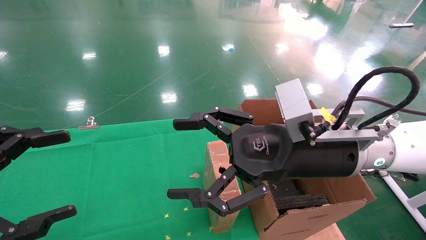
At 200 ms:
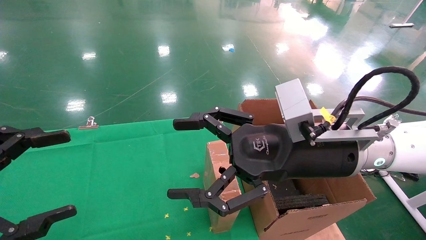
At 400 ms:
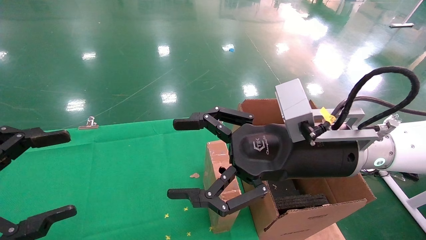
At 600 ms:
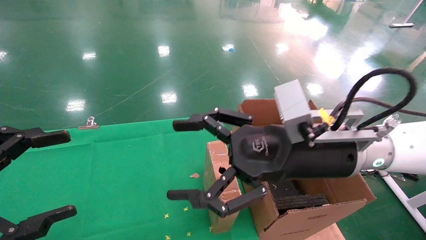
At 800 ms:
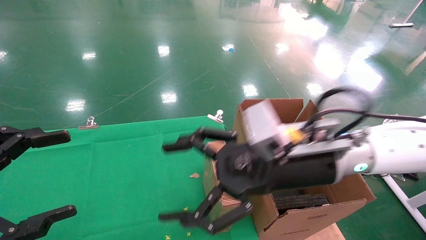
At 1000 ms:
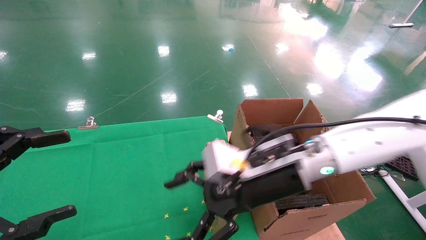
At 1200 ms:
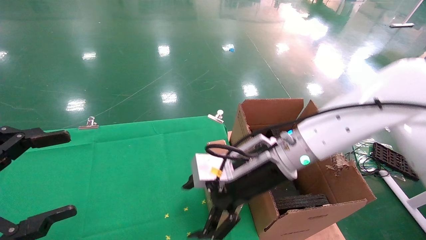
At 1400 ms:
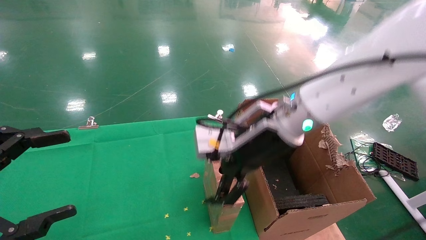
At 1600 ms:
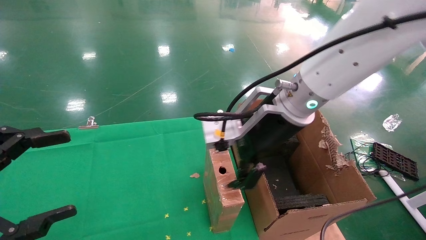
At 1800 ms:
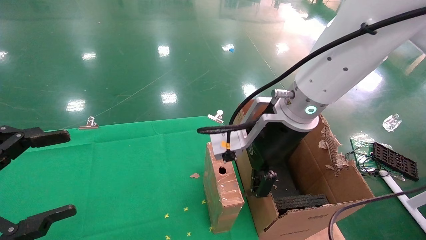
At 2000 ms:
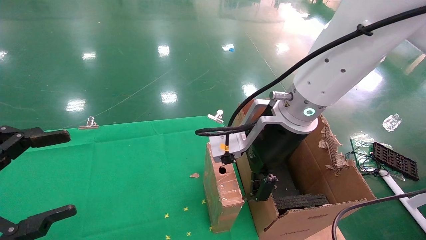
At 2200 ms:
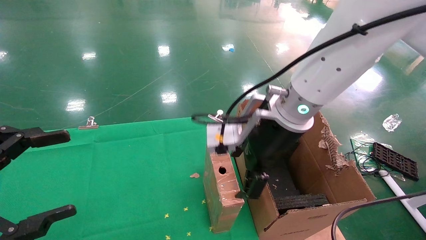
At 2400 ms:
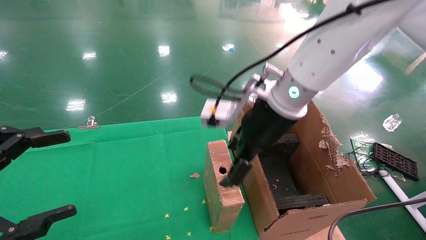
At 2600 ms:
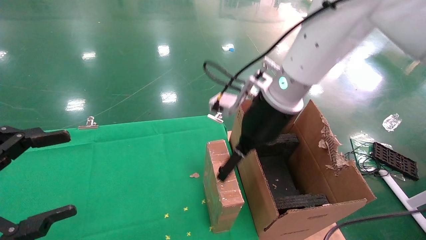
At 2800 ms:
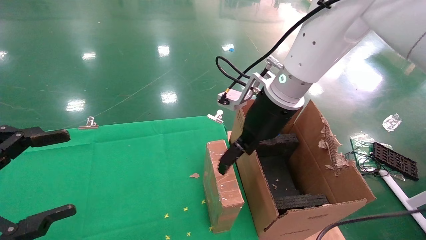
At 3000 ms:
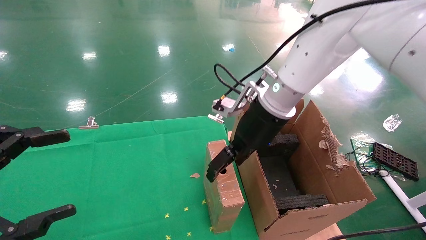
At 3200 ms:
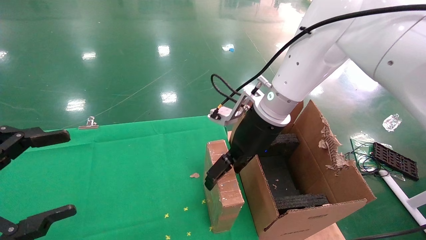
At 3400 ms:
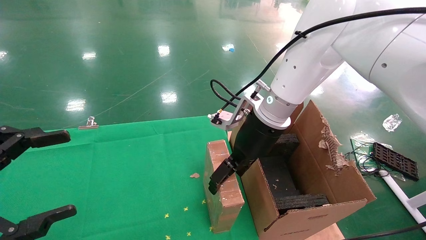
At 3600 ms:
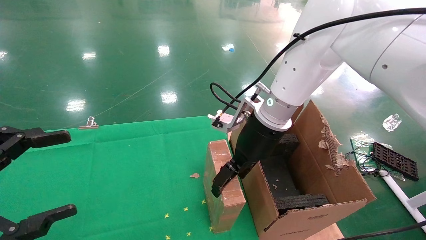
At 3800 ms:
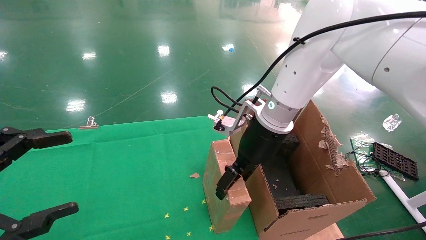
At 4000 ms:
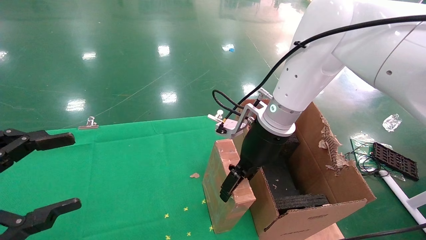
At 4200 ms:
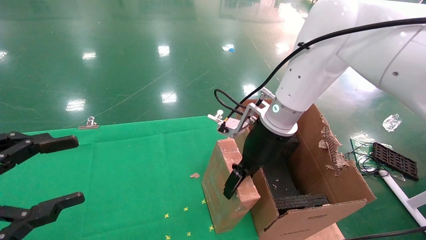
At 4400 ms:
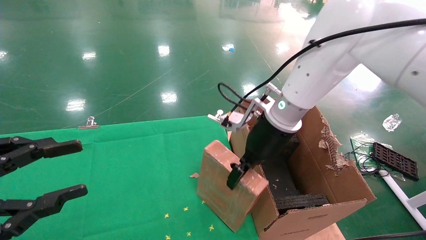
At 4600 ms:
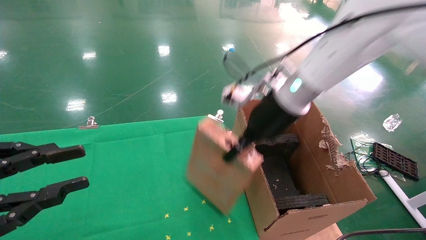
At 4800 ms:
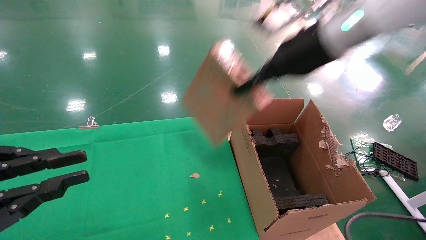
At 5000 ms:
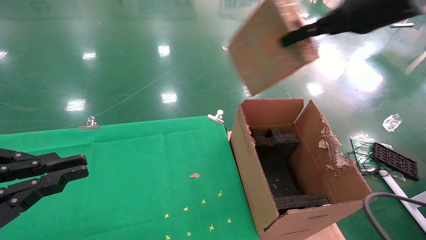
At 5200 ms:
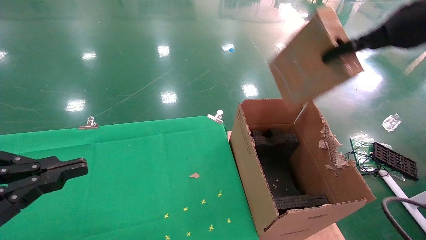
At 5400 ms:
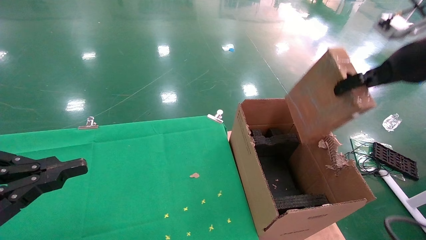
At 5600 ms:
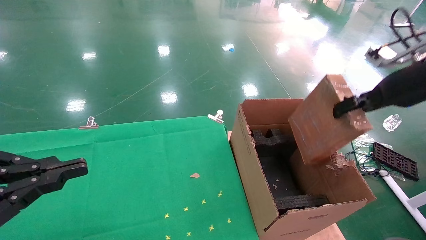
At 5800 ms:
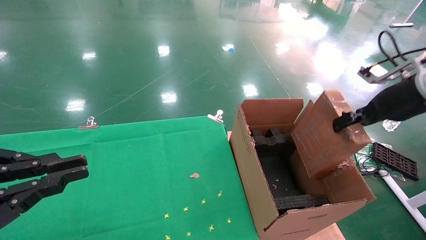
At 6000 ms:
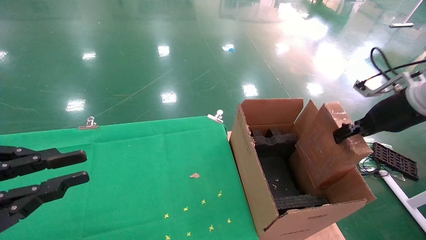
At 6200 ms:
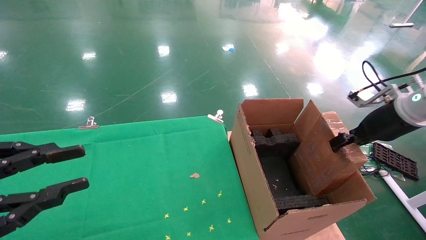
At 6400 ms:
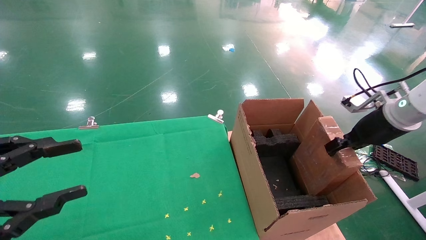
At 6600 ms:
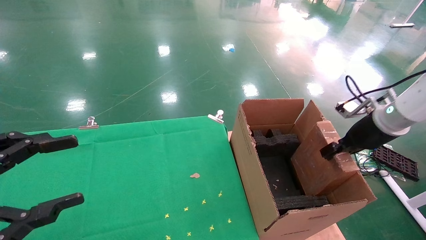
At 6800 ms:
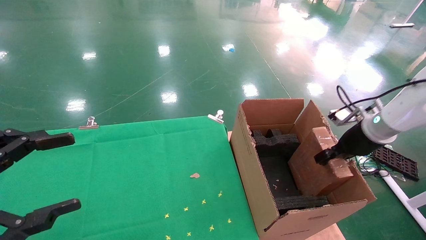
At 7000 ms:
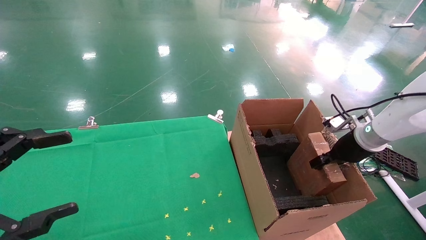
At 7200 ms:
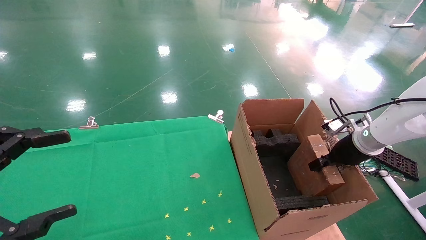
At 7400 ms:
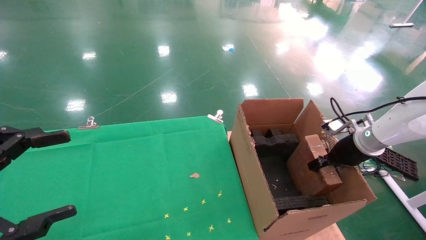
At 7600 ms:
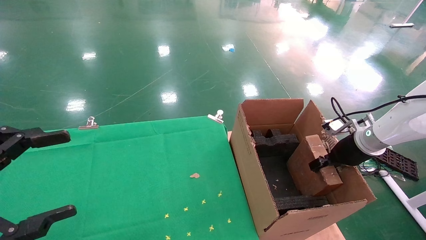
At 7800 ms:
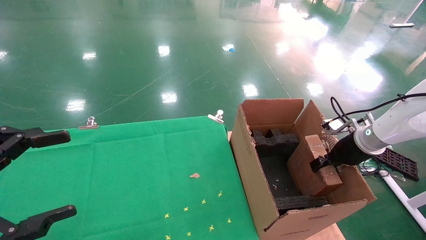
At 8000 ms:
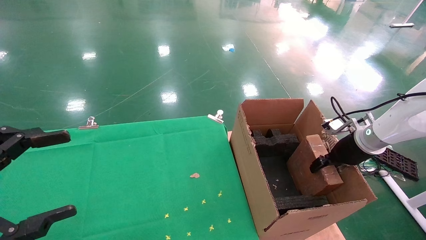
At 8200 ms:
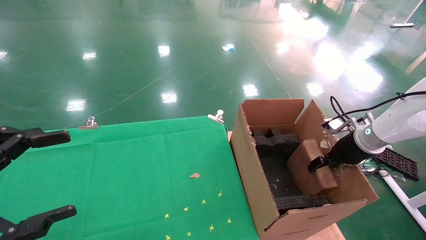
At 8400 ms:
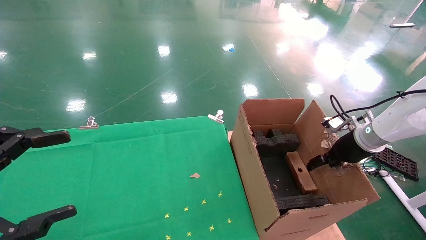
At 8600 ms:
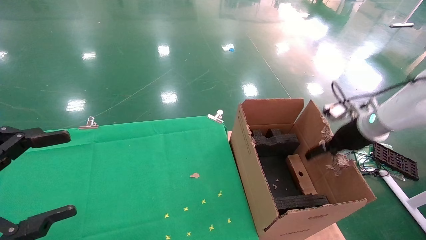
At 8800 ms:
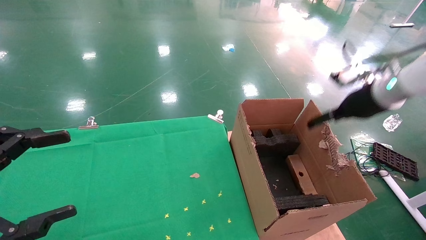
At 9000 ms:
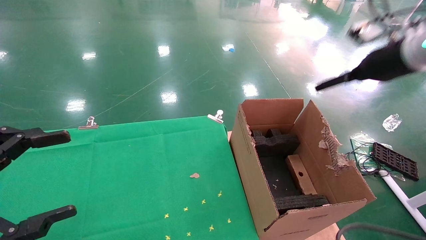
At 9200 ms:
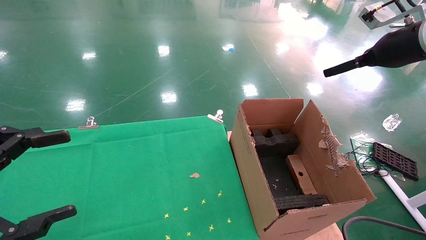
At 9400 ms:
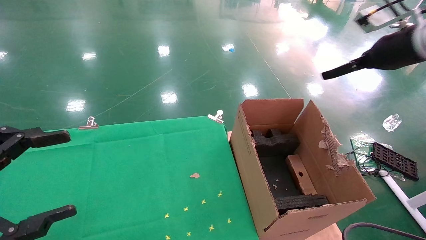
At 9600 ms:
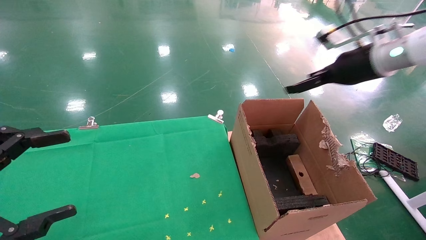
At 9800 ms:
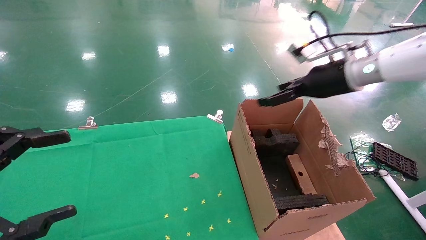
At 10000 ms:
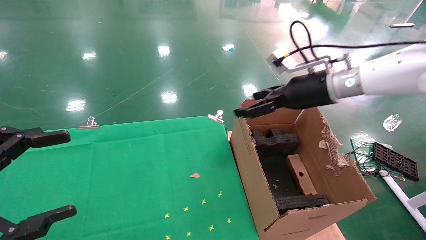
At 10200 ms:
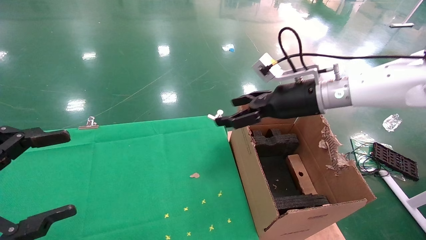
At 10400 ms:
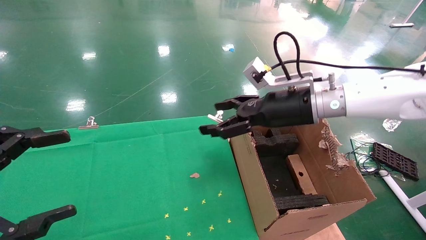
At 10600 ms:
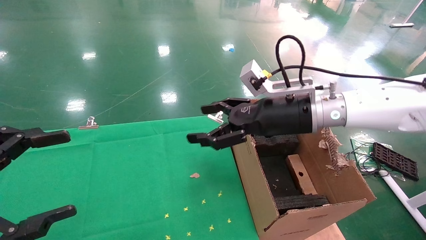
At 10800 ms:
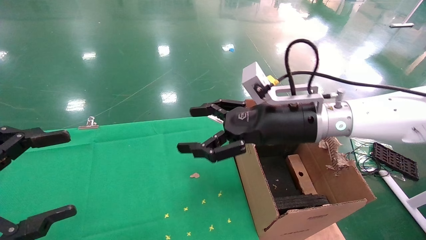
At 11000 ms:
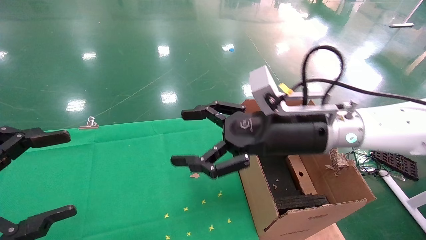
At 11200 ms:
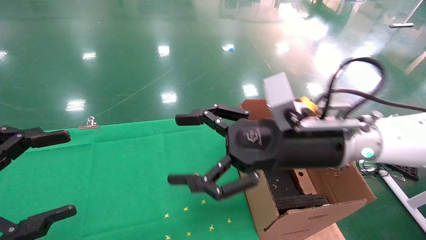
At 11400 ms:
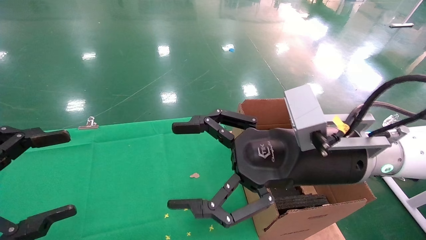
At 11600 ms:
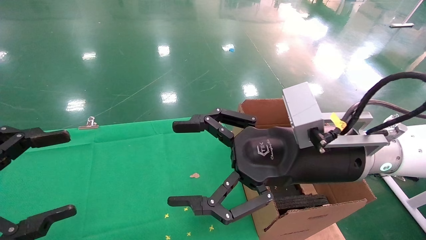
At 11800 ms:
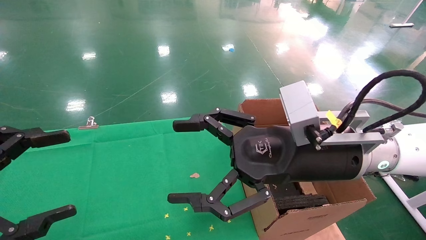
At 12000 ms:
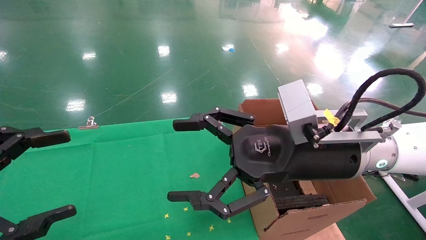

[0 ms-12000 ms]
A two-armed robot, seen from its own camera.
Task of the whole recording: using a robotic arm to pick up a cardboard box and palace it the carton.
Step, 800 ms to 4200 ms: Pick up the mouse and the power cord paper box.
Step, 4400 ms to 8400 ms: Place the mouse and the power cord paper box into the container.
0 ms to 1600 ms: The right gripper is displaced forward and to the left by roughly 10 cm.
1600 ms to 3000 ms: The right gripper shifts roughly 5 cm forward.
3000 ms to 4400 ms: The left gripper closes. Meanwhile the right gripper closes.
4400 ms to 6000 ms: The left gripper closes up. Meanwhile the right gripper is displaced to the right by some 25 cm, and closes up.
6000 ms to 7600 ms: The left gripper opens. The right gripper goes approximately 15 cm downward and forward.
7600 ms to 9000 ms: The right gripper goes some 20 cm upward, and opens.
9000 ms to 10400 ms: The right gripper moves to the left, approximately 20 cm.
10400 ms to 12000 ms: The right gripper moves backward, some 15 cm.

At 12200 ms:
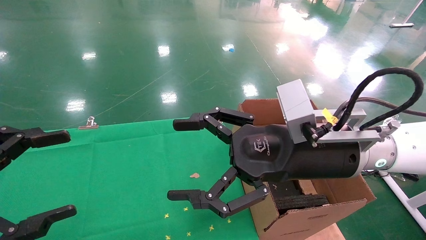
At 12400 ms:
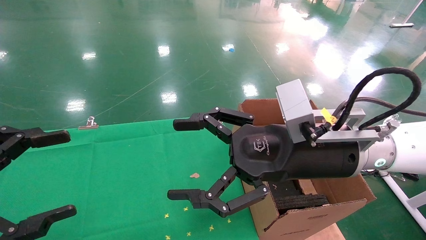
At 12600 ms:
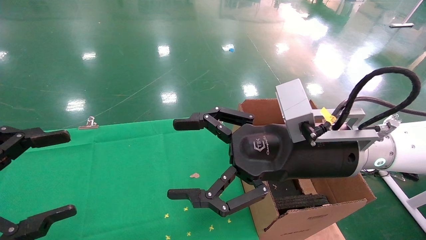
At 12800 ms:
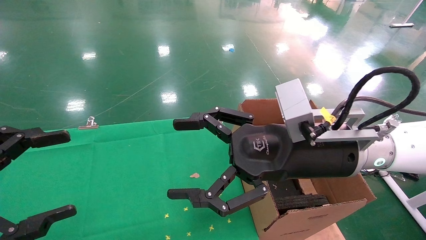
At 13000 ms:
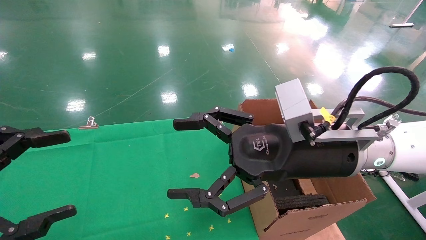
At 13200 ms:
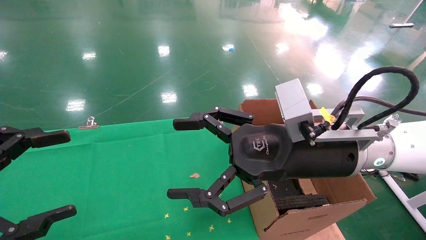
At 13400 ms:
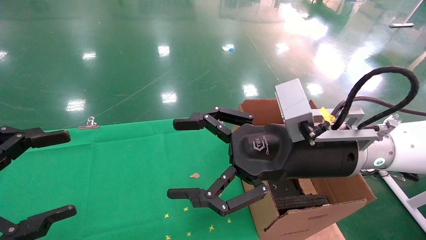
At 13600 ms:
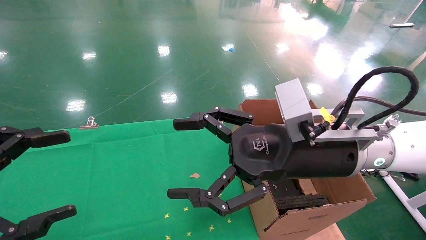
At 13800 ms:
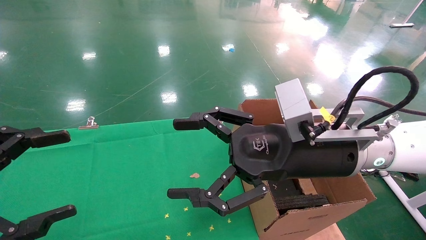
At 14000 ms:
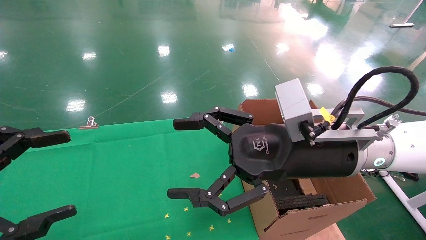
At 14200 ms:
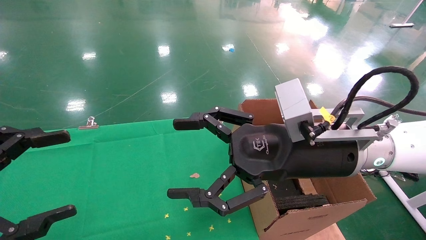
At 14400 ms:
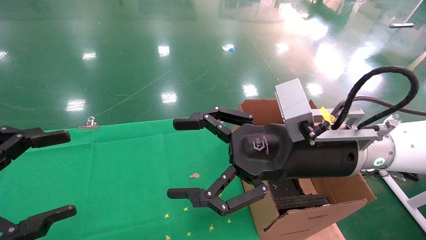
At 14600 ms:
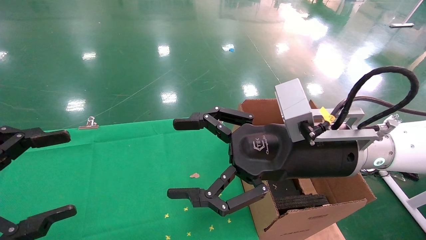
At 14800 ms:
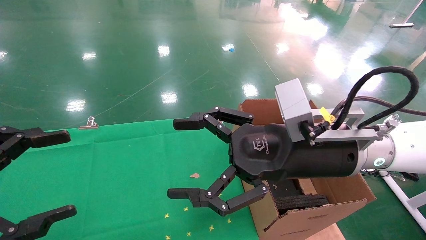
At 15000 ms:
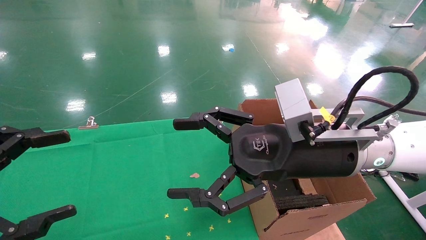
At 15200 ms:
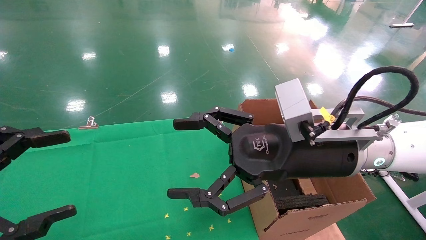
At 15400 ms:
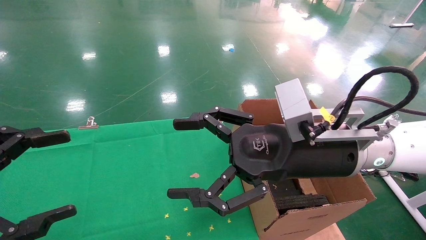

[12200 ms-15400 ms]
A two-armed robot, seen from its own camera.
Task of the whole recording: using a robotic arm to pick up a cardboard box and palace it the carton.
12200 ms to 15400 ms: Neither gripper changes place.

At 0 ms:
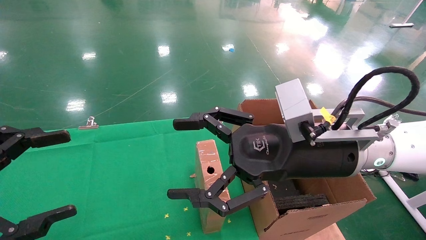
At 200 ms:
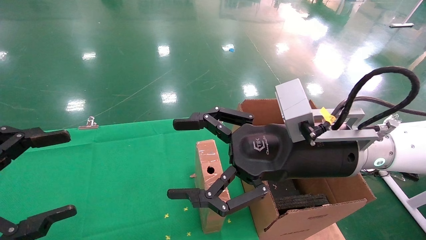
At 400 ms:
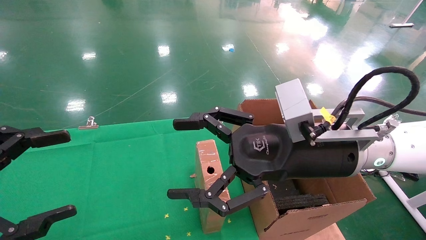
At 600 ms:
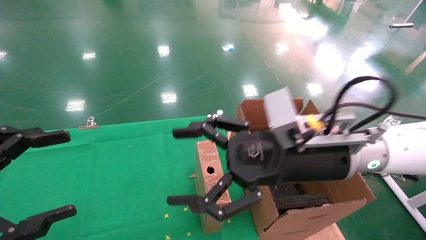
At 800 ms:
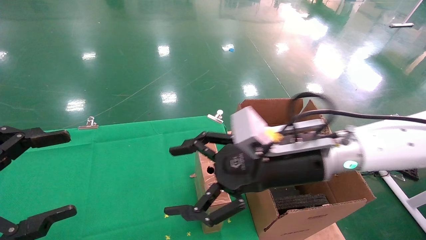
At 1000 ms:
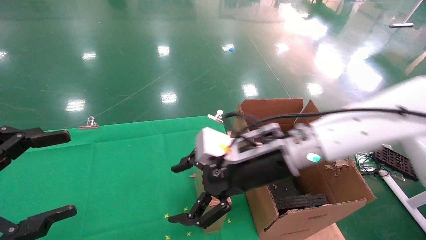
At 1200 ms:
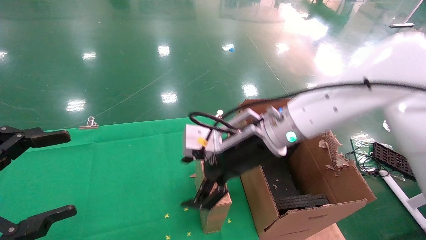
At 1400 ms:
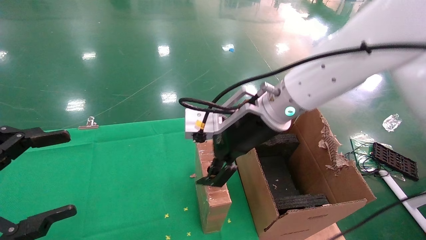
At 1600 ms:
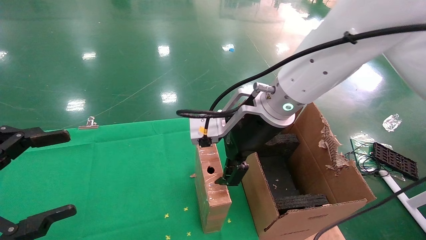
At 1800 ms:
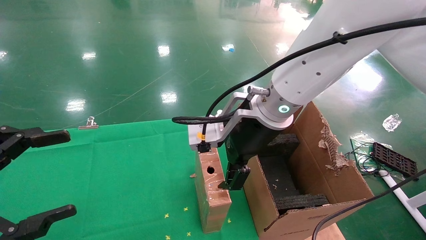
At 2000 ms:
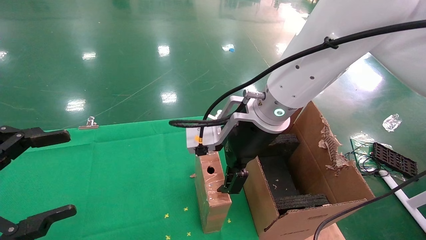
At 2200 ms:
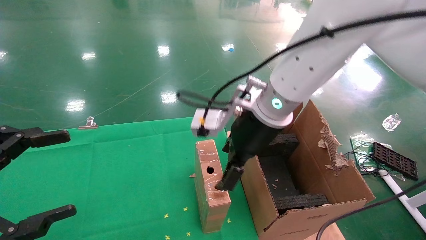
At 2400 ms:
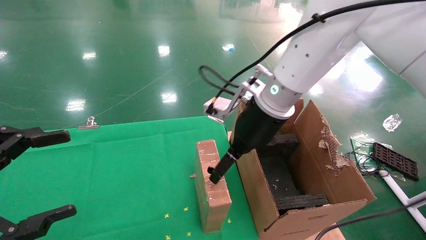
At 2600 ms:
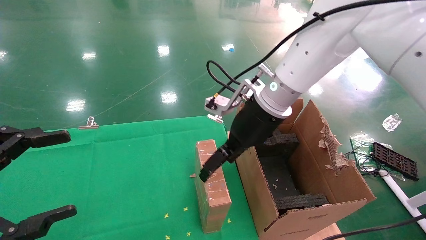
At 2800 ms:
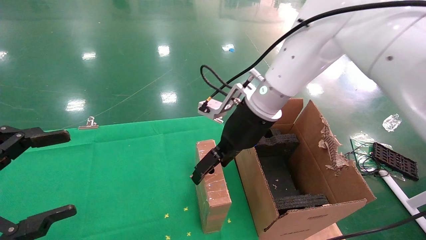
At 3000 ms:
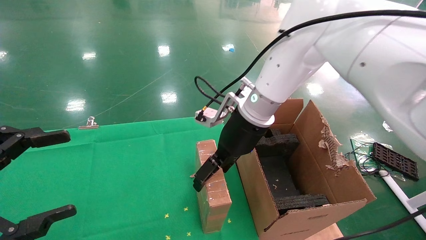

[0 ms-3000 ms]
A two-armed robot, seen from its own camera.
Task of the whole recording: using a robotic arm to pick up a cardboard box and palace it the carton.
0 ms to 1600 ms: The right gripper heads forward and to the left, covering approximately 10 cm.
1600 ms to 3000 ms: The right gripper travels forward by approximately 5 cm.
